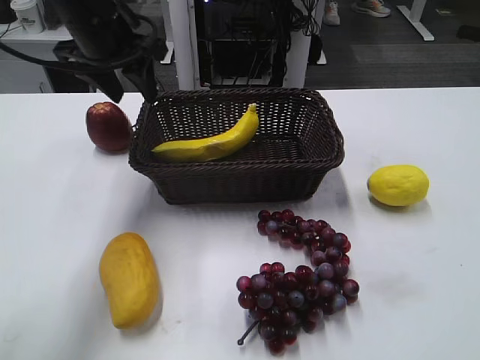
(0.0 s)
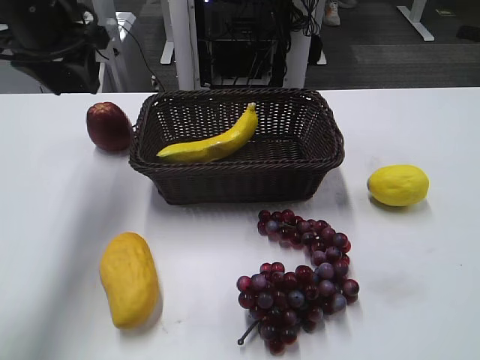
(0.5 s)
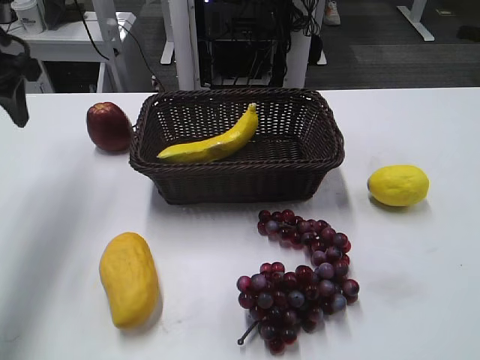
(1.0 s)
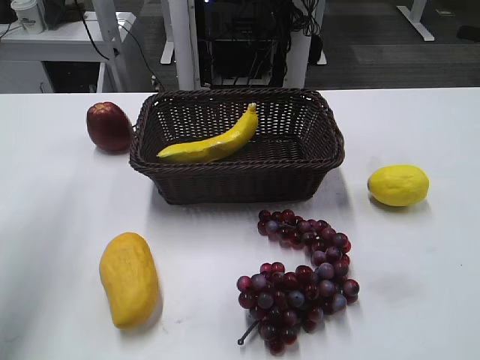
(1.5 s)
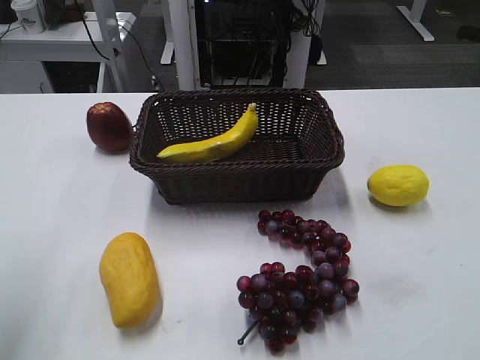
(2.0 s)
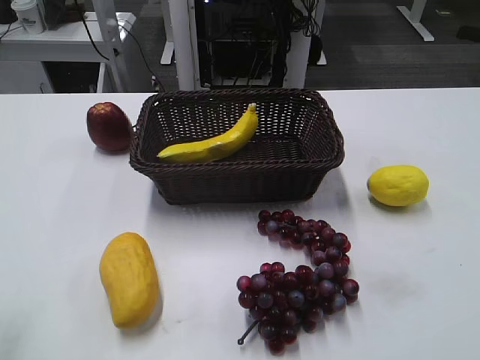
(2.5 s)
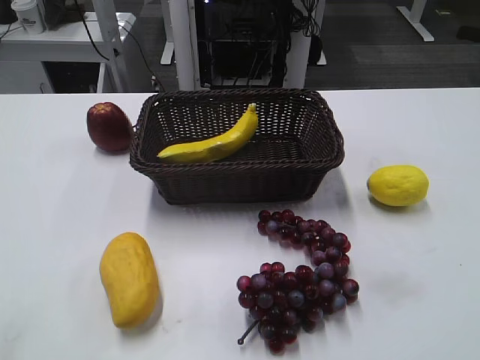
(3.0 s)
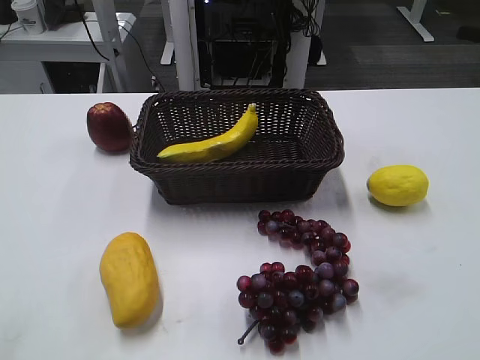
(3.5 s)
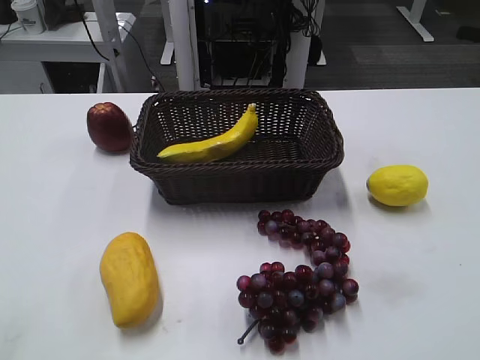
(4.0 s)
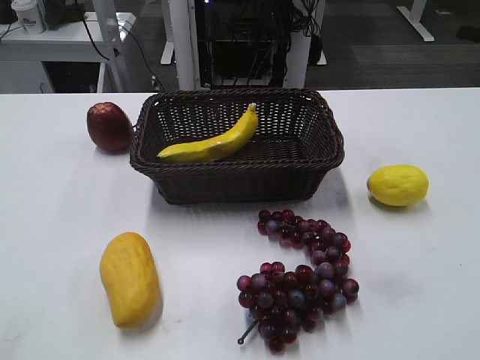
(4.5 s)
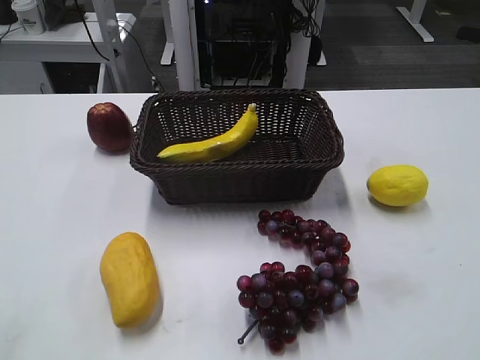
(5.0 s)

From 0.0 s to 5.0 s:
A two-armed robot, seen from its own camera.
From 0.0 s to 2.5 s: The left gripper heads backward and to the left, covering some 35 cm.
